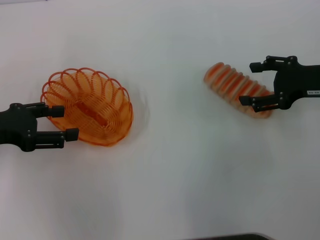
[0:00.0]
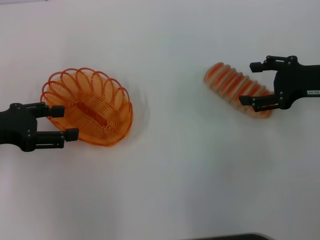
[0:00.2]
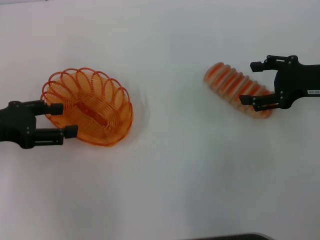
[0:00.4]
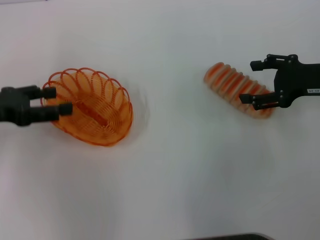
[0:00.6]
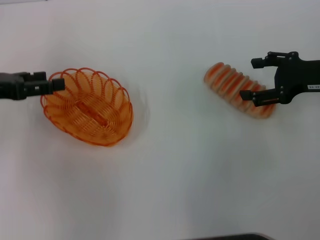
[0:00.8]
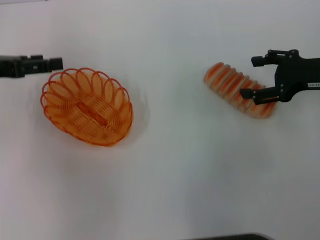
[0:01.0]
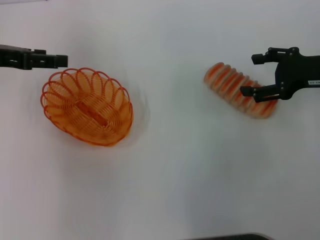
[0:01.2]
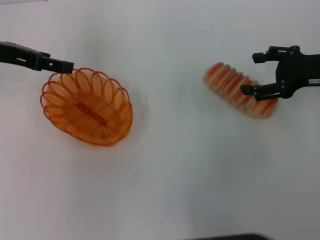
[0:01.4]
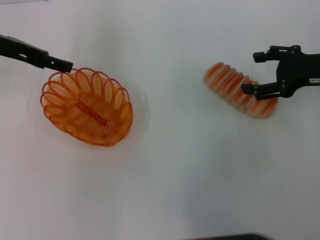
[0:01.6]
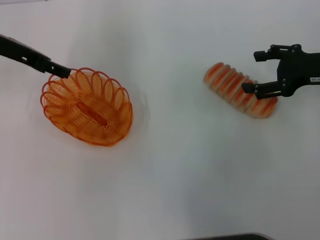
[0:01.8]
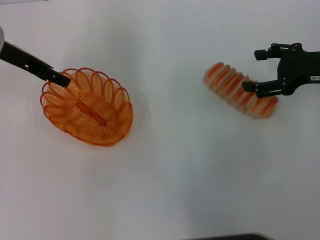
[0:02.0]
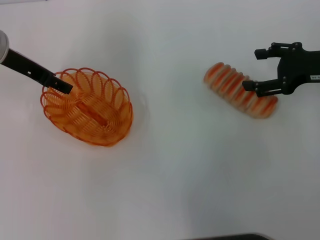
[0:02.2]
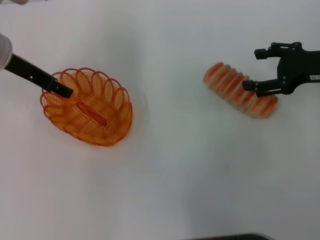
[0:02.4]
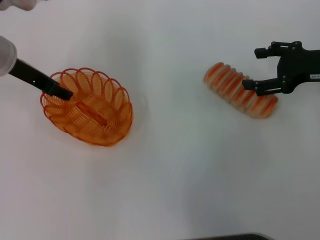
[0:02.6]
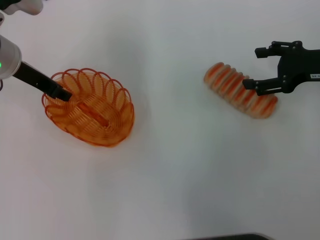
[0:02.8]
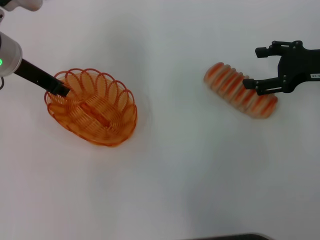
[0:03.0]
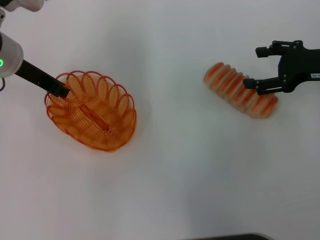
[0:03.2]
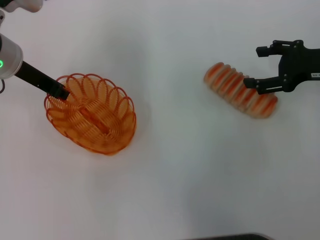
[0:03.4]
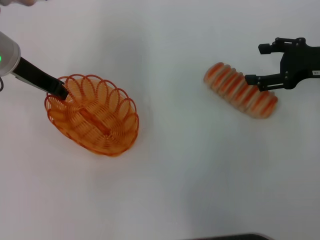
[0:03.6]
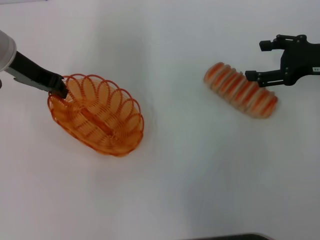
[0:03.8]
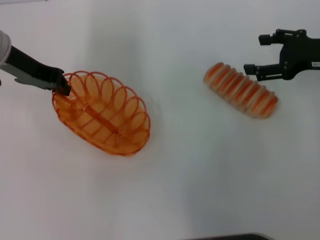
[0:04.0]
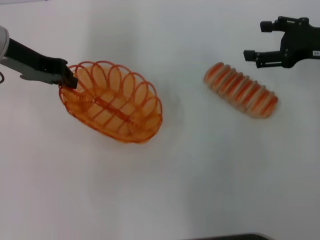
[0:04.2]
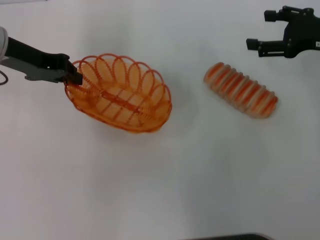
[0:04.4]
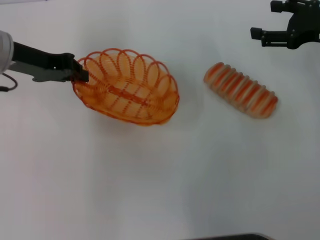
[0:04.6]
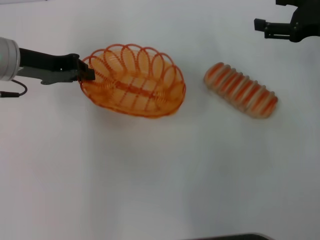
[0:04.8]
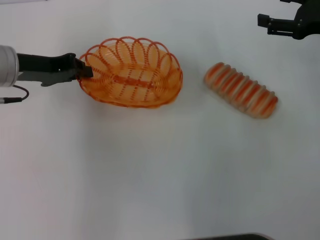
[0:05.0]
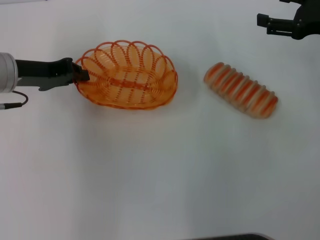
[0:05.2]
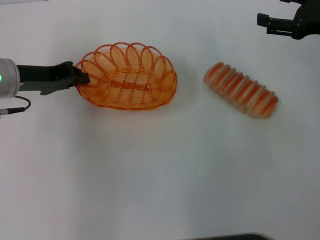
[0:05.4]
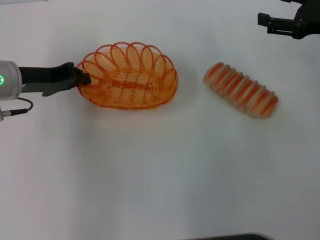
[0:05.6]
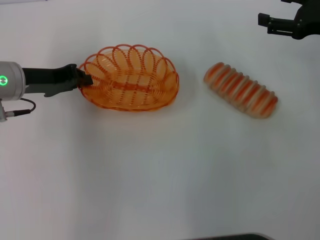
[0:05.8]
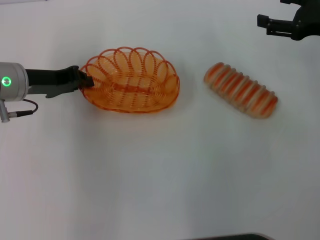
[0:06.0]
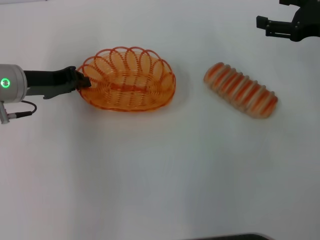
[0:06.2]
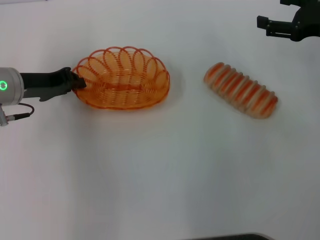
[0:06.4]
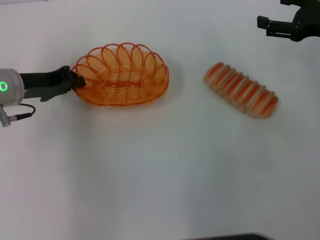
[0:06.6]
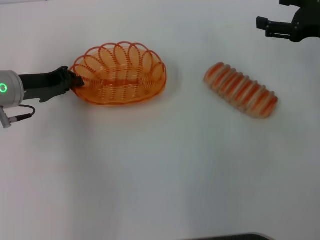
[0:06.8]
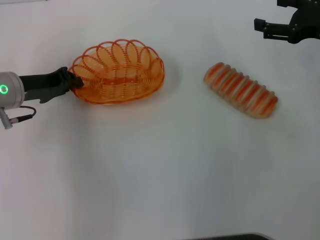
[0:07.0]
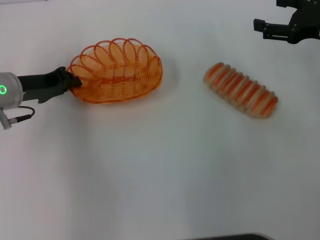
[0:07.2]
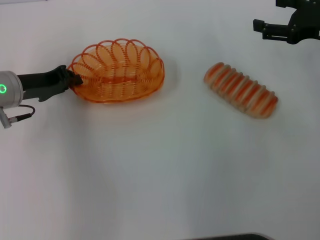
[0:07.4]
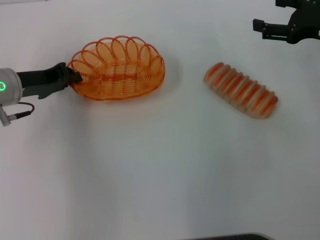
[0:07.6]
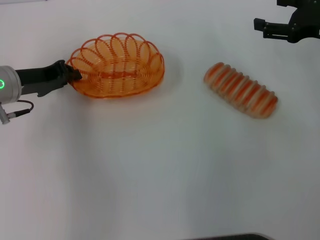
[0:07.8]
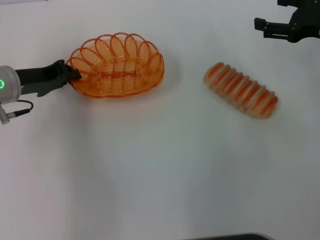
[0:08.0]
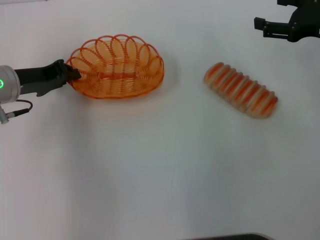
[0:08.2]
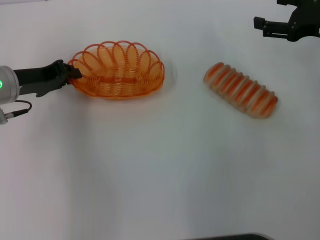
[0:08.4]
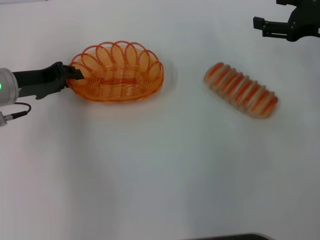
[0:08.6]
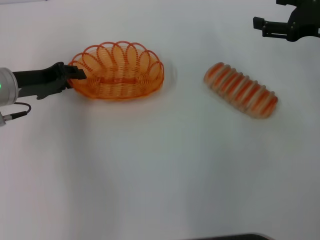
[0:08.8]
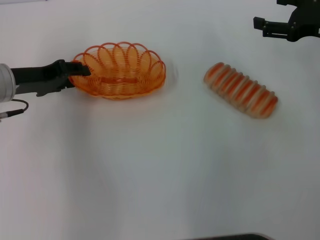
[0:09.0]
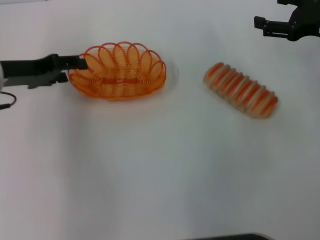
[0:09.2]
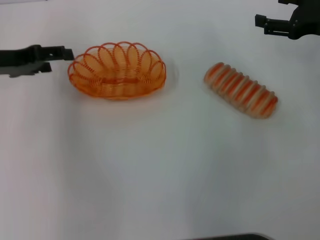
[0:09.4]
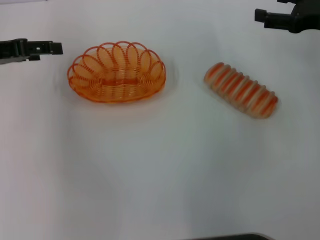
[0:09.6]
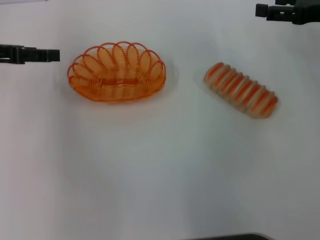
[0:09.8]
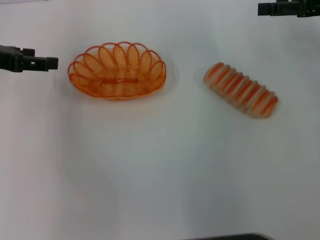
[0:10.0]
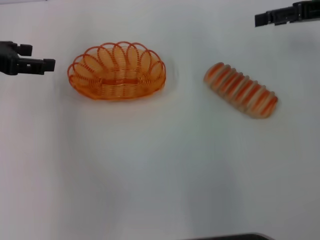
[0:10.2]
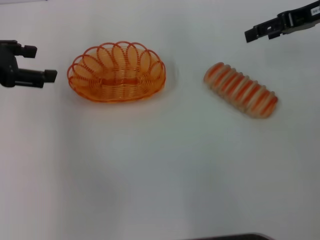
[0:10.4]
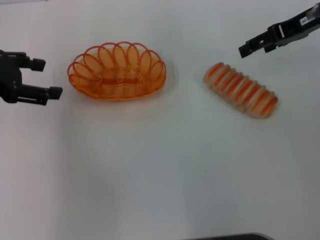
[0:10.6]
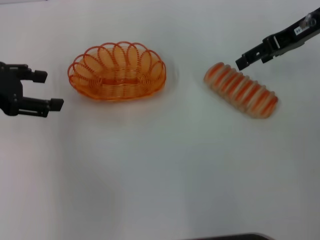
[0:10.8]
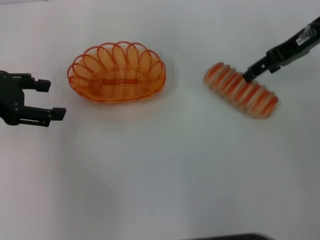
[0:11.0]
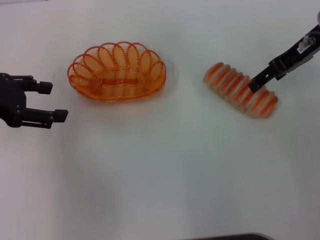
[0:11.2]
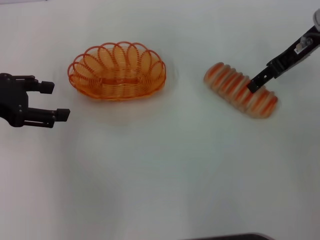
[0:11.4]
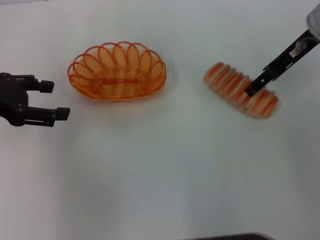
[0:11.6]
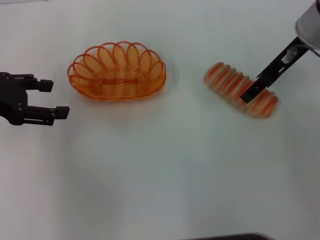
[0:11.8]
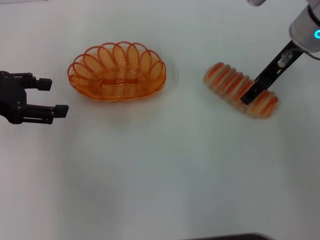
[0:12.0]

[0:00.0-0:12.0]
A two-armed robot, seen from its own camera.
Step, 0:00.0 to 0:03.8: Pick up the basket with the left gripper.
Step, 0:04.0 to 0:09.2: Place the basket in the center of view with the left gripper.
0:00.0 to 0:01.6: The left gripper is displaced forward, upward and to the right by approximately 15 cm.
0:01.6 to 0:03.0: The left gripper closes up.
0:03.0 to 0:04.4: The left gripper closes.
0:04.4 to 0:06.0: The left gripper shifts some 5 cm downward.
0:06.0 to 0:07.6: The grippers move only a little.
0:07.6 to 0:09.0: The left gripper opens its fingers.
0:09.0 to 0:10.4: The right gripper is displaced upward and forward by roughly 10 cm; the left gripper goes some 10 cm upward and to the left, and opens up.
0:10.4 to 0:12.0: The right gripper goes some 10 cm to the left.

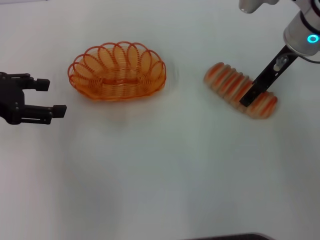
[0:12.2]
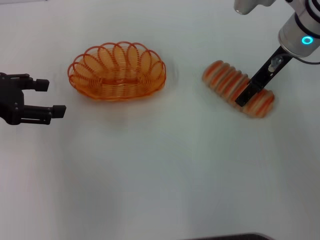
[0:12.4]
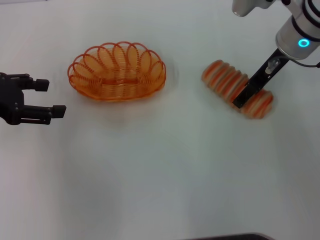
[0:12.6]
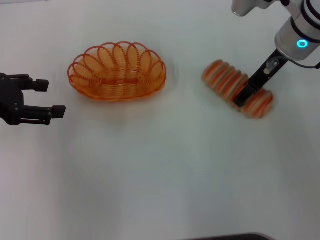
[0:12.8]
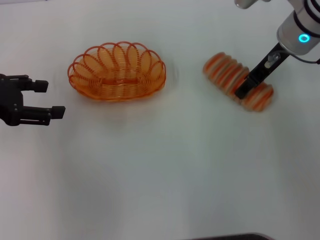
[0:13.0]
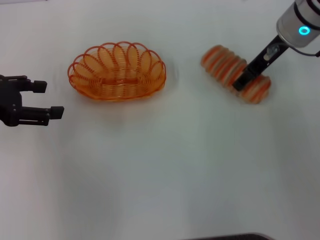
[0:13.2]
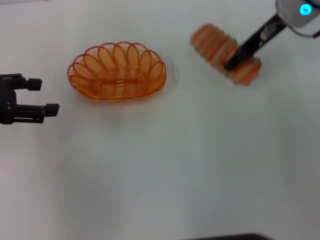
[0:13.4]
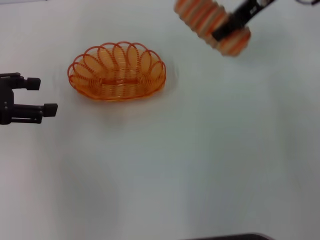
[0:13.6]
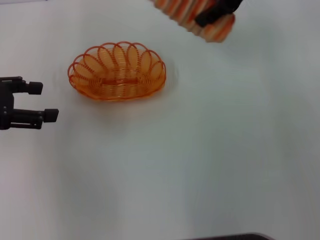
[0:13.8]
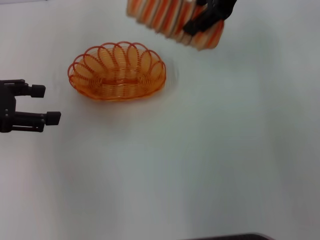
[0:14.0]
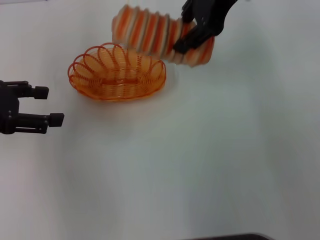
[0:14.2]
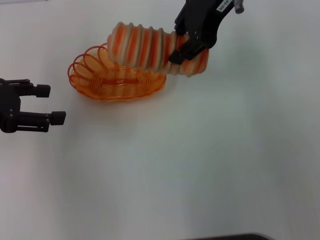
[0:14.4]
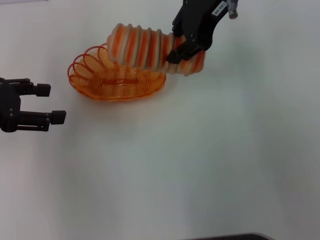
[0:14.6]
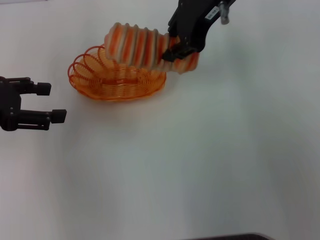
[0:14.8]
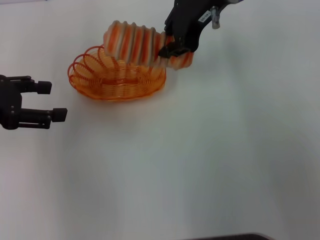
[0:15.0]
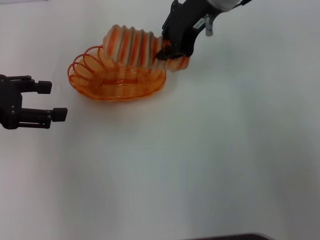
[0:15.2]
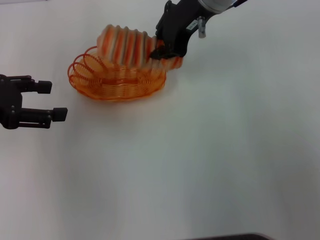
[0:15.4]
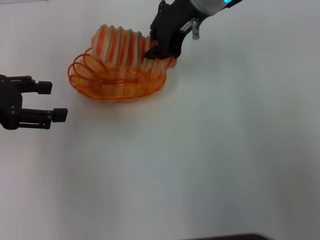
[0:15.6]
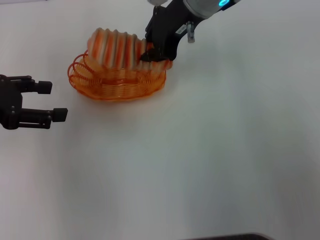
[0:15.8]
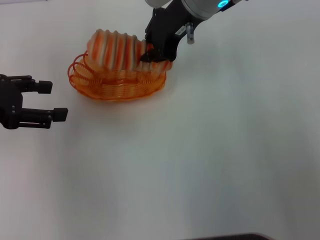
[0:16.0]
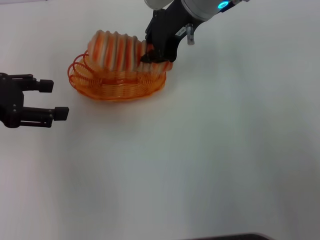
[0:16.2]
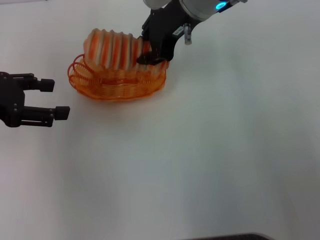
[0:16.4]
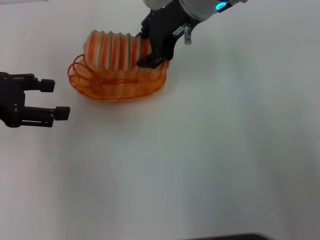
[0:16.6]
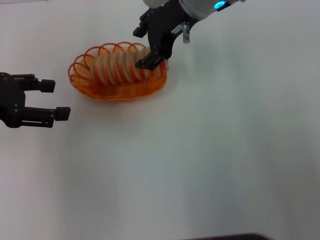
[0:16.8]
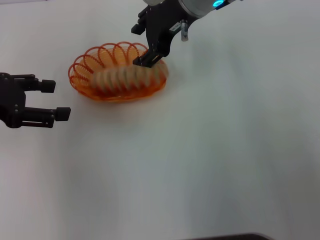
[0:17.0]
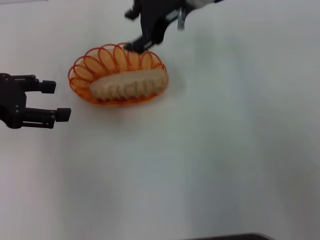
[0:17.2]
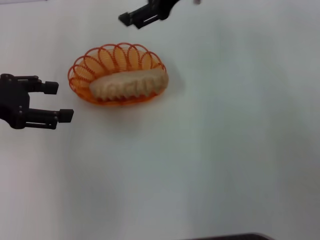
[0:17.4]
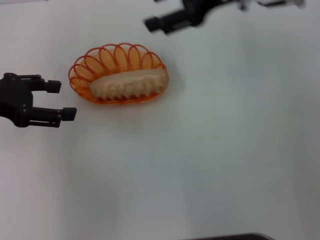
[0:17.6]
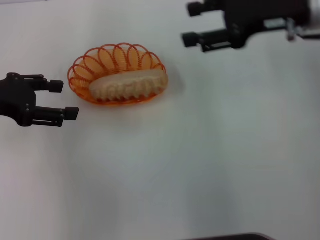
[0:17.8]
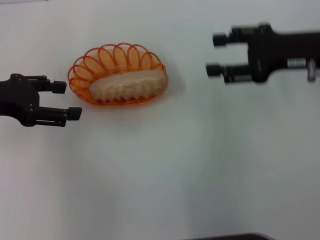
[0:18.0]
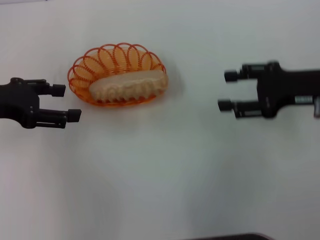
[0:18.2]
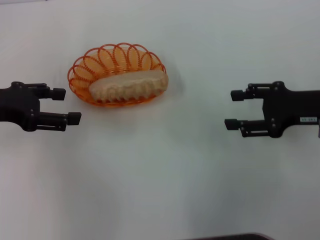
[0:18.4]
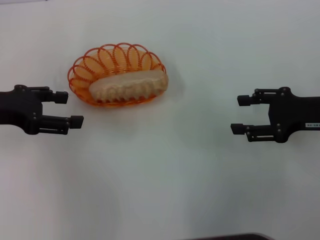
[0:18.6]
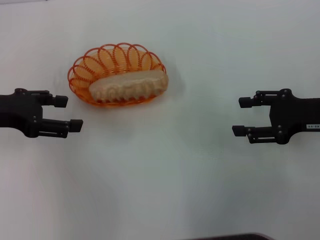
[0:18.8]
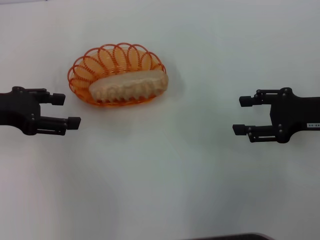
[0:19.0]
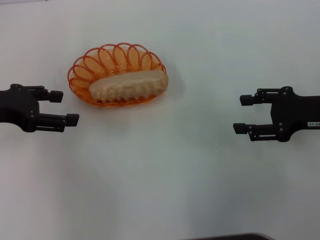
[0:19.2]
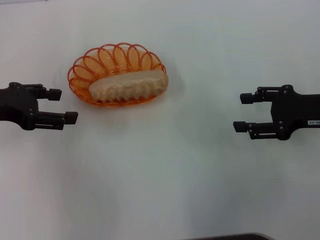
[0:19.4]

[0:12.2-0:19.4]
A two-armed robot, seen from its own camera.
Step, 0:13.2 to 0:17.0: Place the long bread into the basket with the right gripper.
0:12.2 to 0:13.6: The right gripper heads upward, covering approximately 5 cm, and closes its fingers.
0:13.6 to 0:15.0: The right gripper is displaced to the left by some 10 cm, and closes.
0:15.0 to 0:16.6: The grippers stay close to where they were, moving slightly.
0:16.6 to 0:18.0: The right gripper shifts some 20 cm to the right and backward, and opens up.
0:18.0 to 0:19.4: The right gripper moves downward and backward, about 10 cm.
